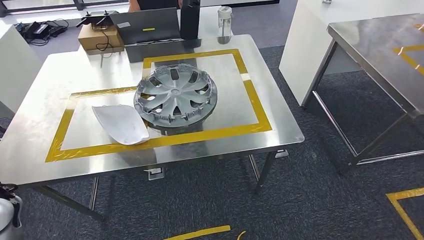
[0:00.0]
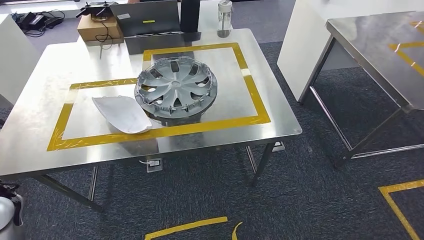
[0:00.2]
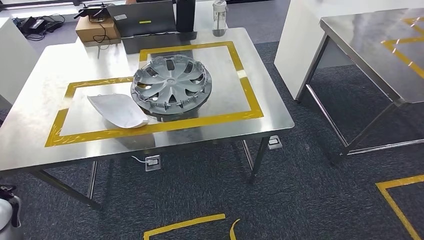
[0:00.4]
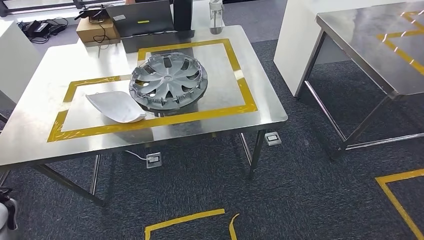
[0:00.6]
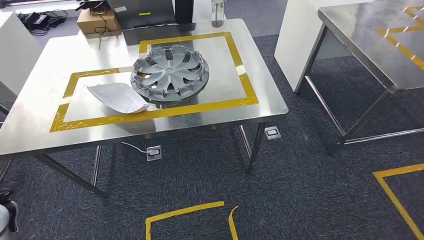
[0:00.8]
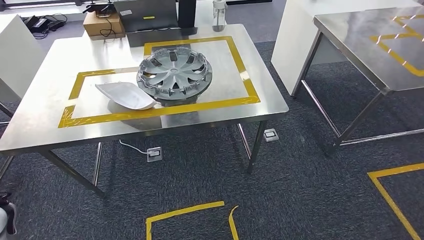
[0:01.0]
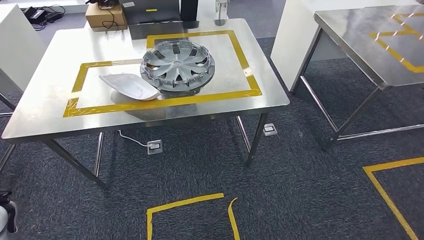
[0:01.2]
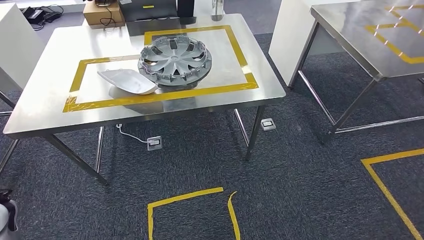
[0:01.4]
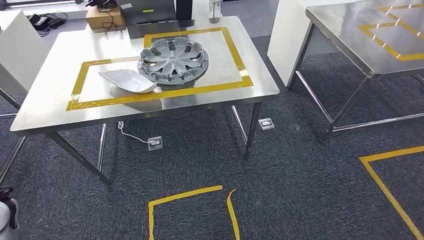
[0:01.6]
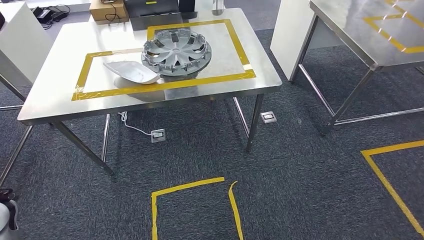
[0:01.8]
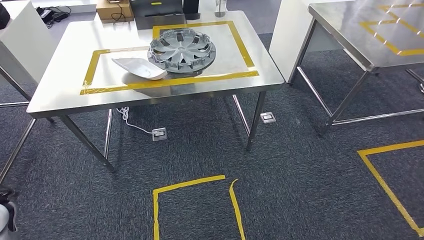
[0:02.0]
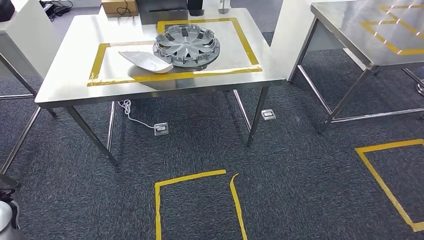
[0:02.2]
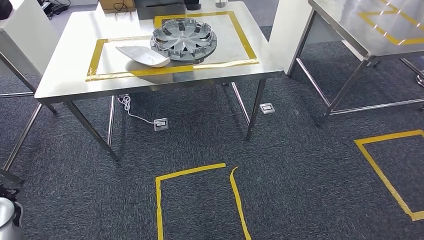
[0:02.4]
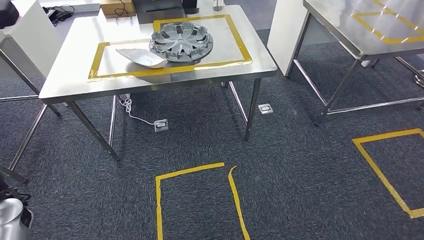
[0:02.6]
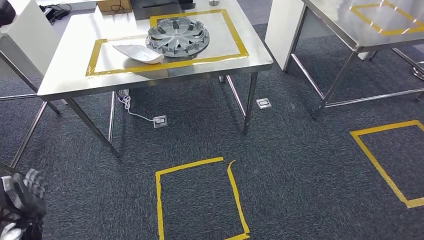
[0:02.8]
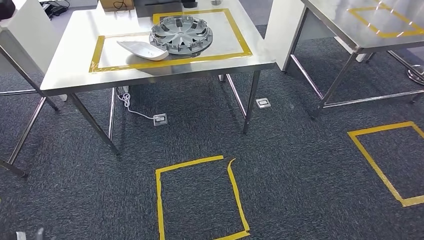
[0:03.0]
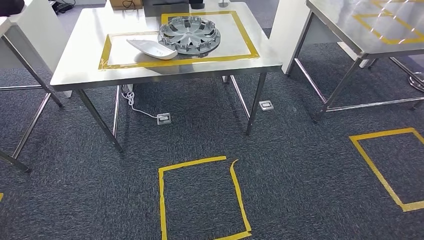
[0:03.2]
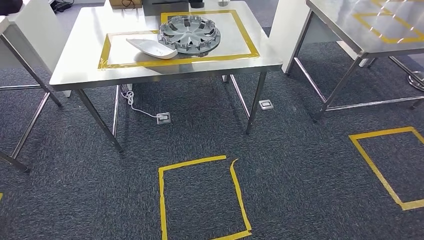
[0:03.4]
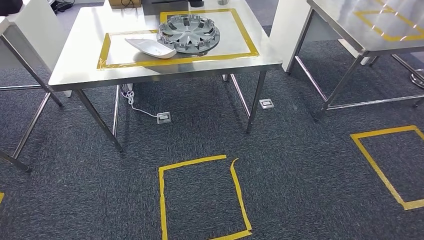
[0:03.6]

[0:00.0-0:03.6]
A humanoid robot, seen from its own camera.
Step, 0:00.0 to 0:03.6: Move to the initial position at the workbench.
